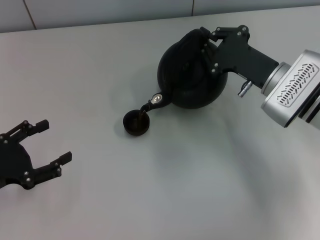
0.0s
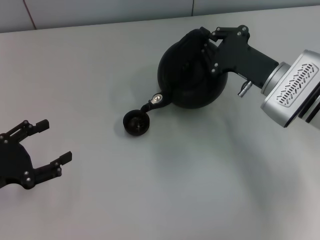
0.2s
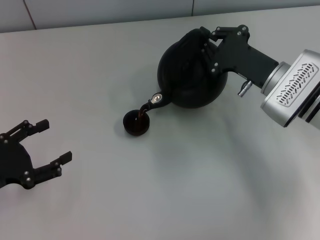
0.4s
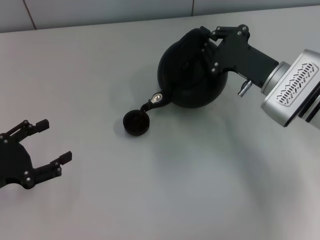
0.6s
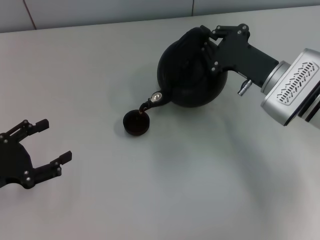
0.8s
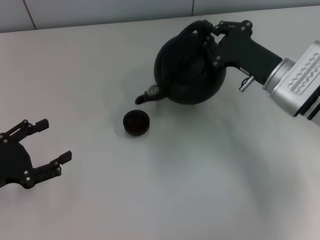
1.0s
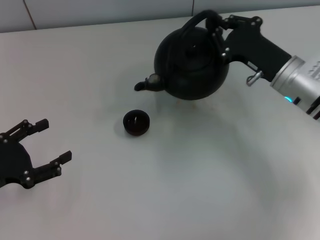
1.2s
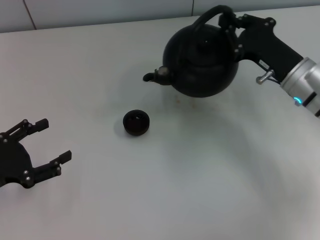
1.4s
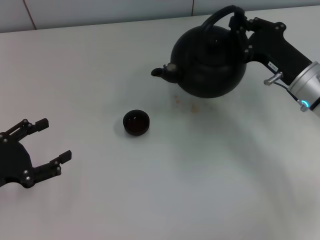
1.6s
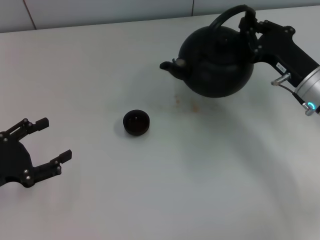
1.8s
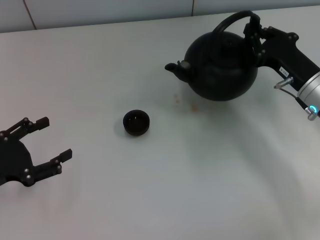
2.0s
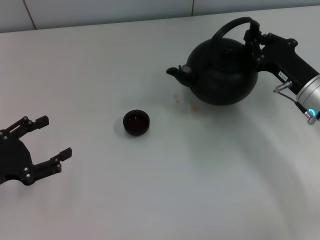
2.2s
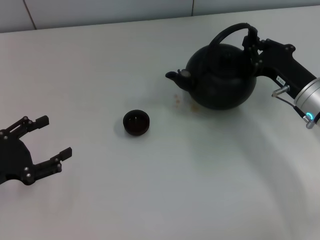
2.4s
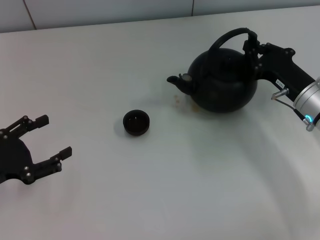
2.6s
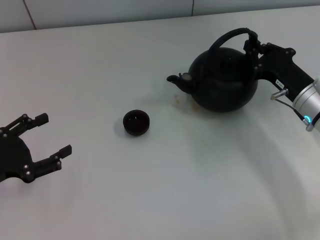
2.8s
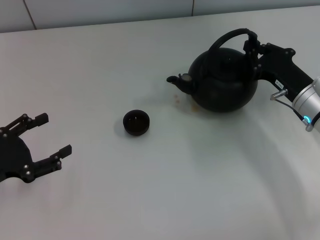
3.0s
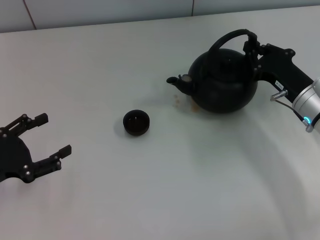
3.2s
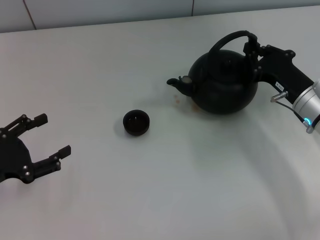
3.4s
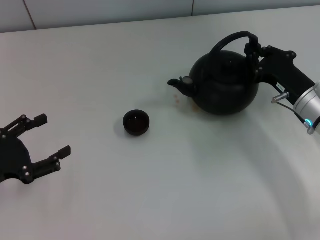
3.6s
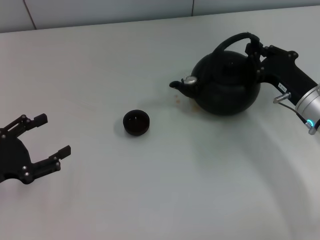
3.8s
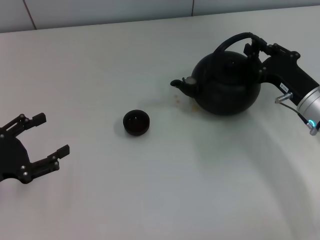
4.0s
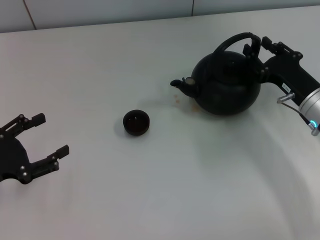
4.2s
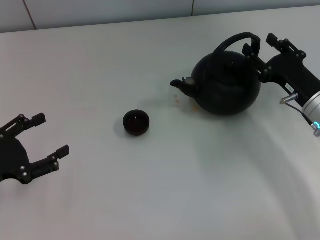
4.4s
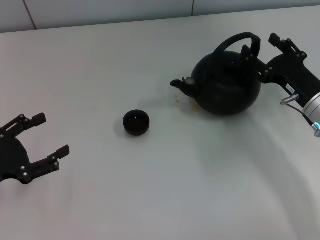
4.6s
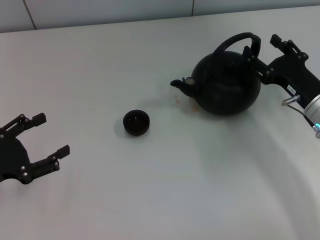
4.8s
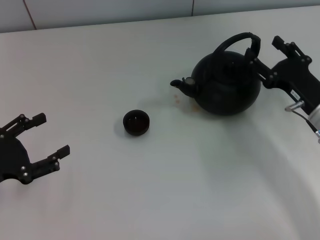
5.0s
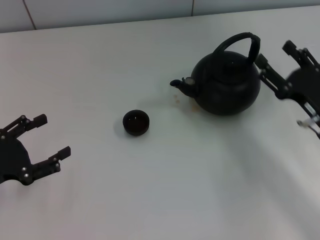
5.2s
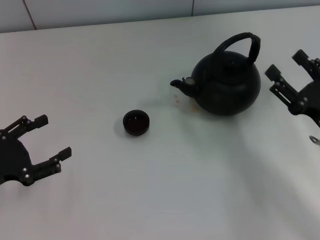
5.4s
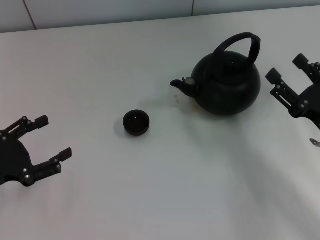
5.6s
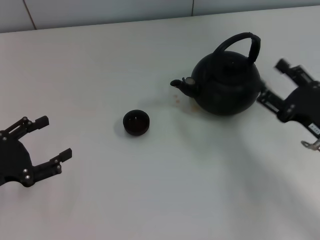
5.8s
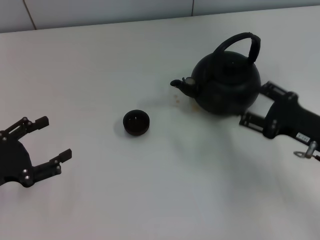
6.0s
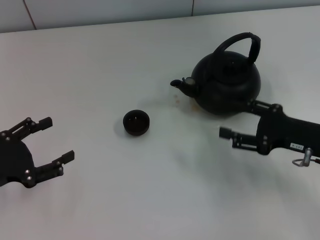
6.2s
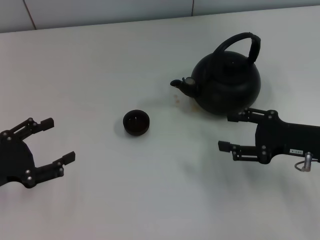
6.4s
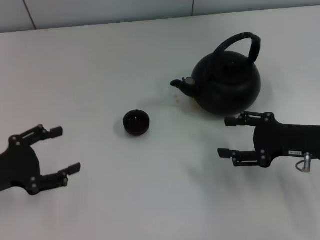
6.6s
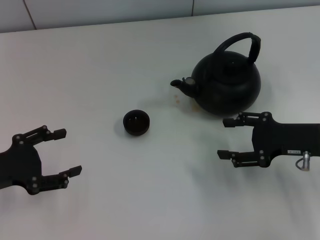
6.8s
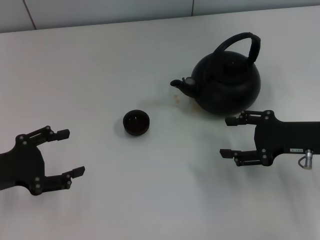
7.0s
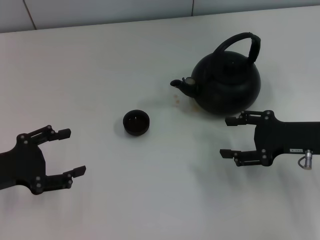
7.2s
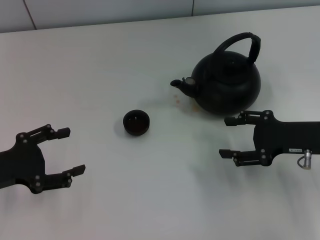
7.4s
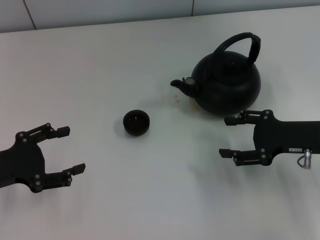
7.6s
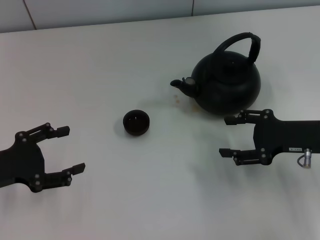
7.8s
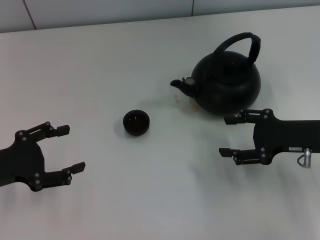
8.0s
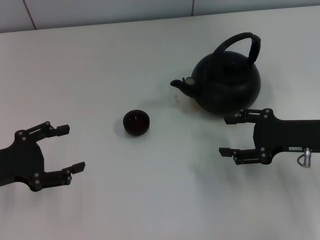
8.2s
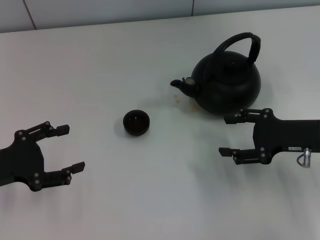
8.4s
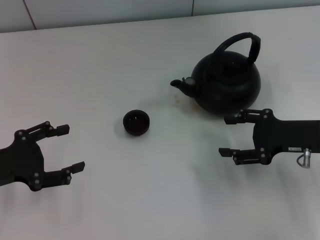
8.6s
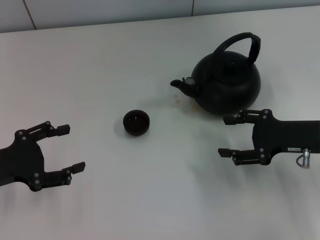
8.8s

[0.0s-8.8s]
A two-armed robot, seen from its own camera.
Task of the whole recording: Grasp the handle of the teapot with one hand and pour tea into the teacup.
Step, 1.6s to 5.4s: Put down the teapot with the right gripper.
1.4s to 3.0s: The grippers stay close to where they were, moving slightly.
3.0s to 4.4s: The right gripper opens.
4.4s to 5.8s: The right gripper shifts approximately 5 cm backward.
5.8s to 7.4s: The right gripper moves roughly 5 cm.
7.4s to 8.8s: Both grippers stay put.

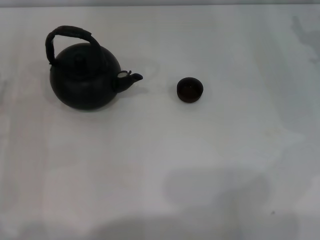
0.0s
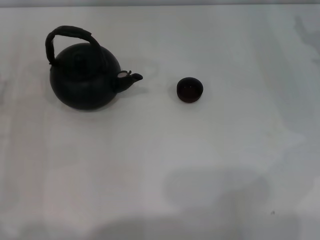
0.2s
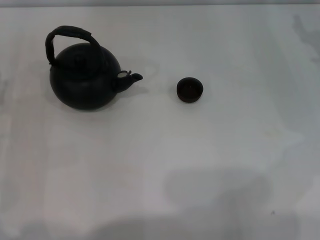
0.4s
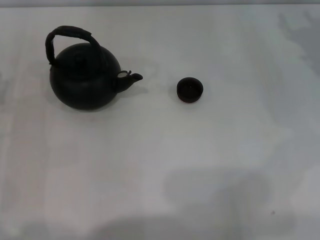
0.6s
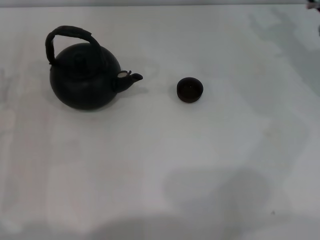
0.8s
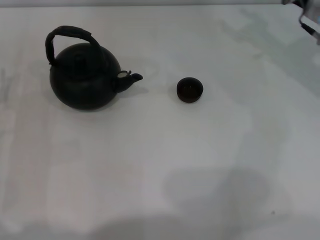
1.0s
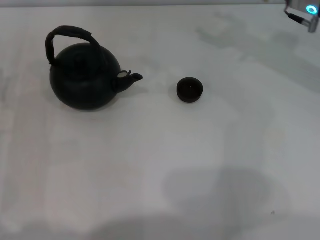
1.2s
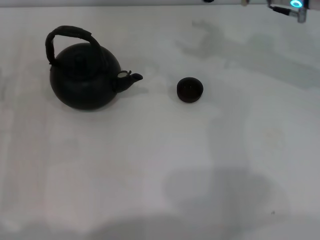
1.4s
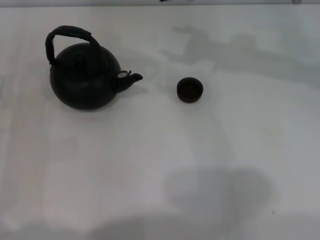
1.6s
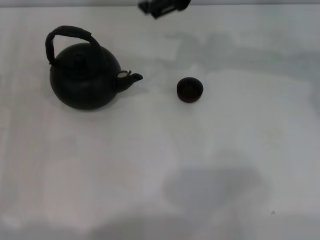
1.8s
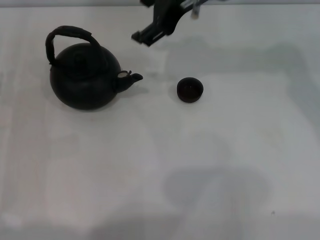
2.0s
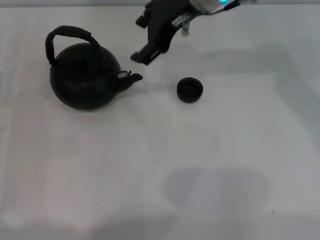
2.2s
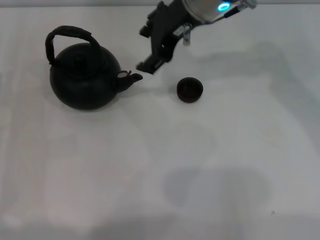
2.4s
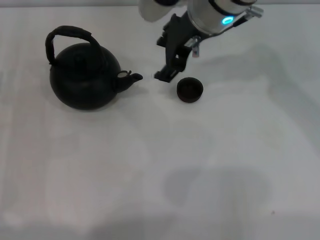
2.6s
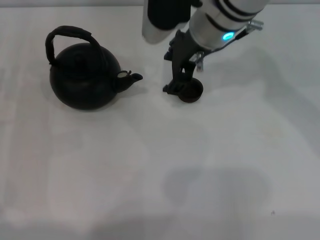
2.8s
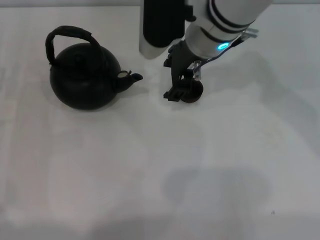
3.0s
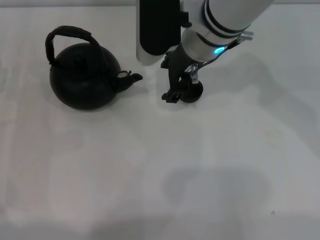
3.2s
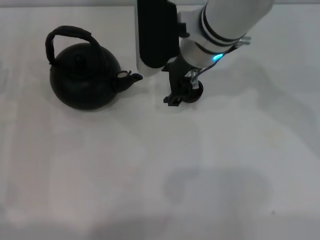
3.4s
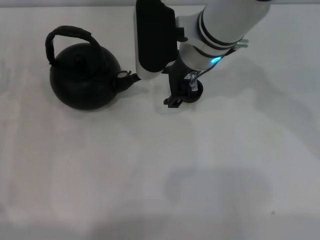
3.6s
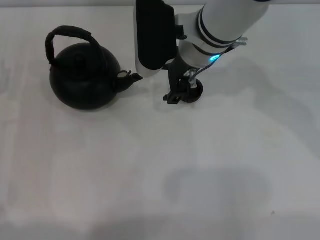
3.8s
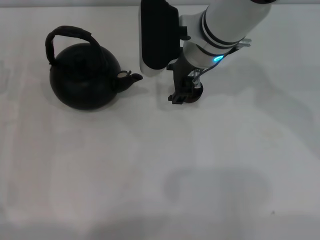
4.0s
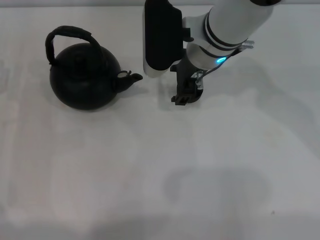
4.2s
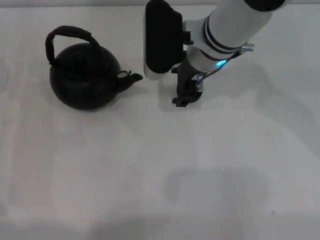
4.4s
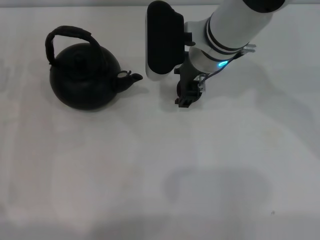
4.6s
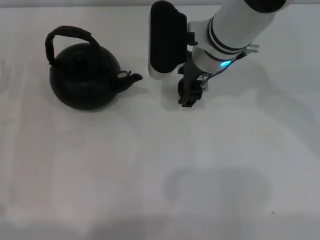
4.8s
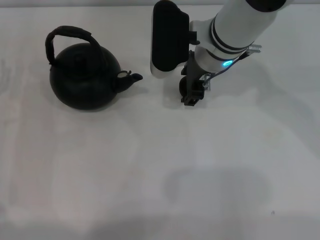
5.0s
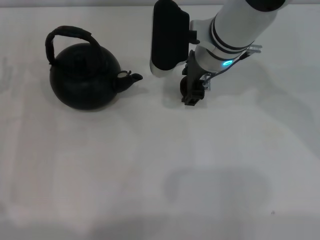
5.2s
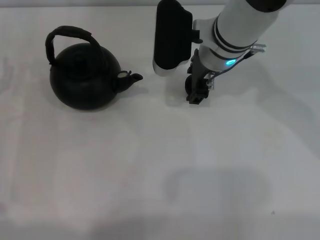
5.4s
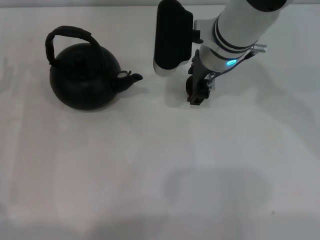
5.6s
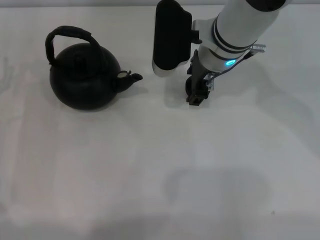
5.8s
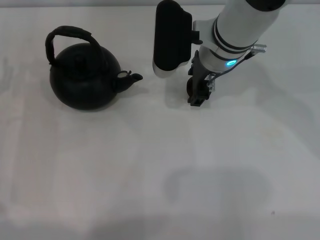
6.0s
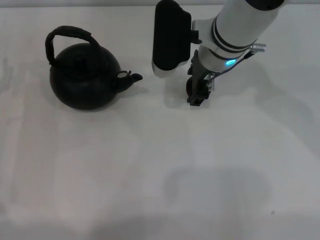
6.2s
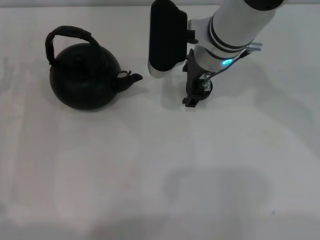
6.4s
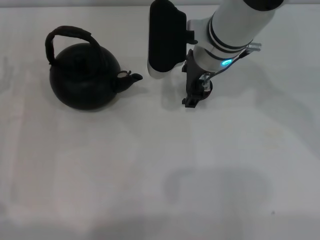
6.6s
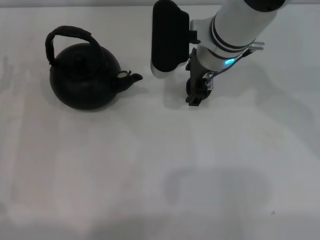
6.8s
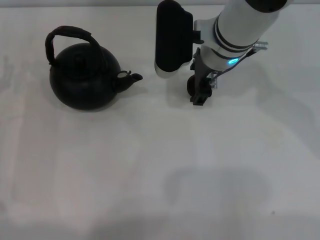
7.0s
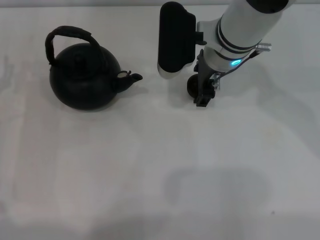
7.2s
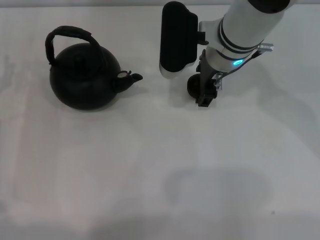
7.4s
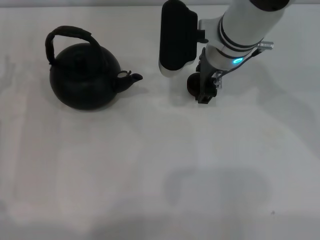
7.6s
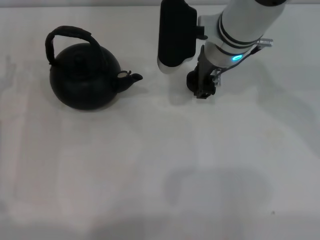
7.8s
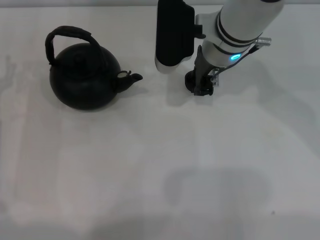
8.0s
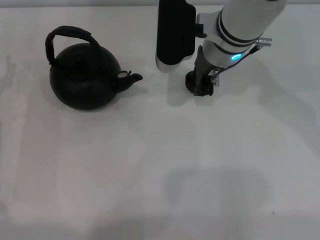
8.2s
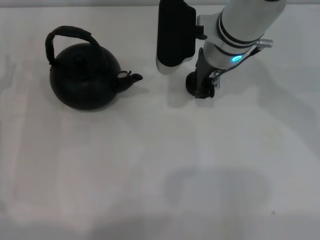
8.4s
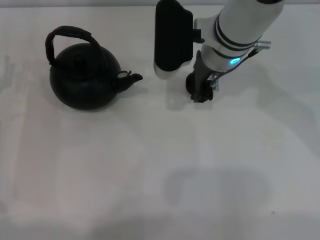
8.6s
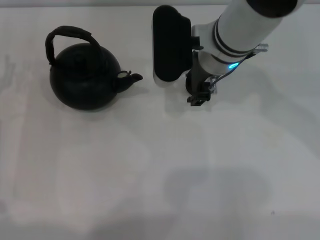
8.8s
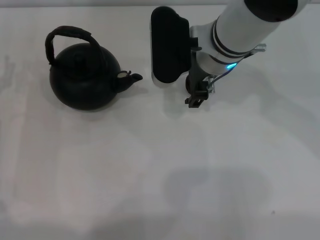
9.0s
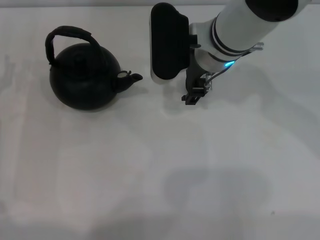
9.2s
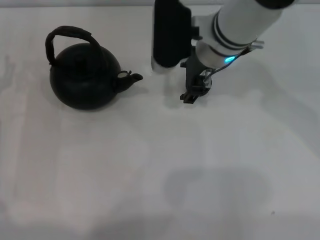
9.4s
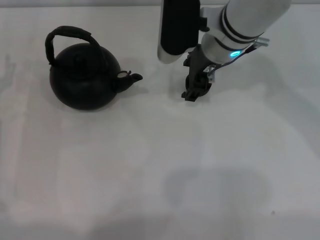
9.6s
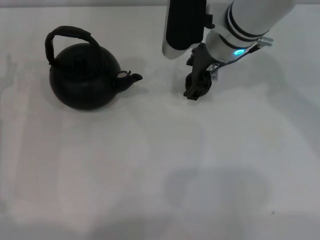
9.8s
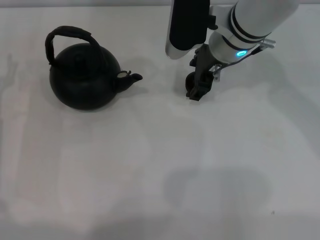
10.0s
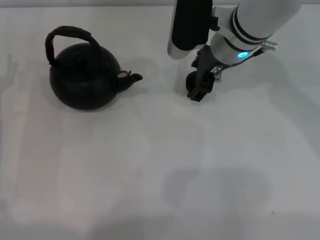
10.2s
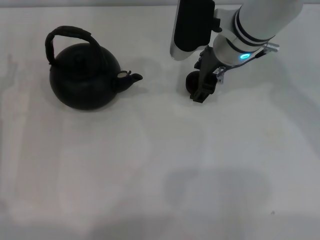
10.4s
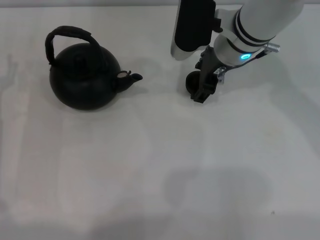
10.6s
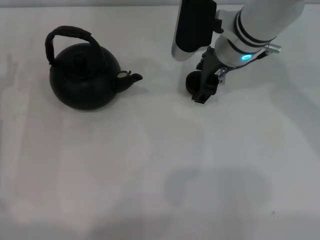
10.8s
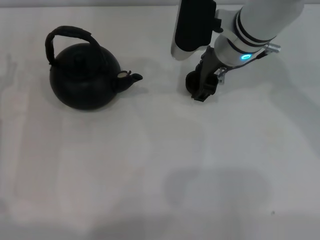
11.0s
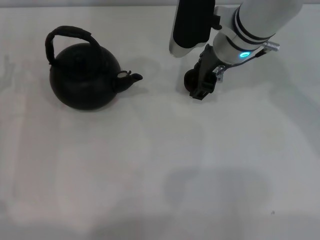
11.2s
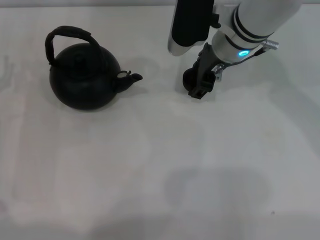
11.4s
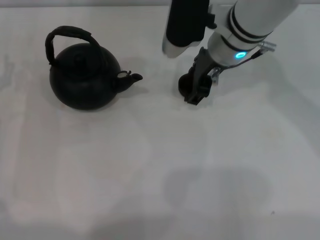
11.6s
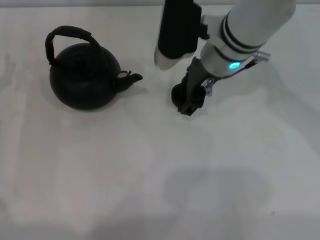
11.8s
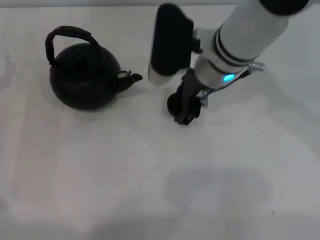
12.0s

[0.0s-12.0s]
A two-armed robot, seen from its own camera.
Task of the whole recording: Grasp the handle of the teapot with one hand and pour tea into the teacup.
Step, 0.0s to 11.4s: Pick up the teacup with the right gripper.
1.6s to 3.0s: The right gripper travels to the left and downward by roughly 10 cm.
3.0s to 6.0s: The grippers make only small movements.
6.0s to 7.6s: Both grippers stay put.
7.6s to 9.0s: The right gripper closes its fingers.
9.0s to 10.4s: The grippers make only small movements.
10.4s to 12.0s: The right gripper changes place by roughly 5 cm.

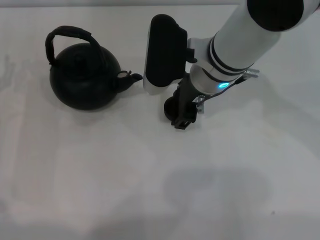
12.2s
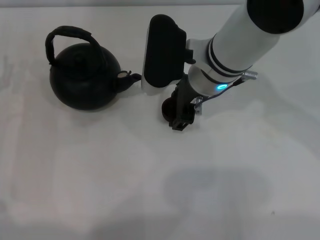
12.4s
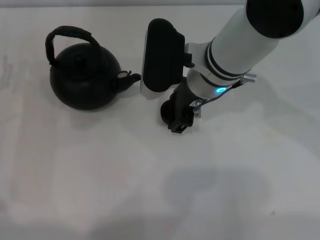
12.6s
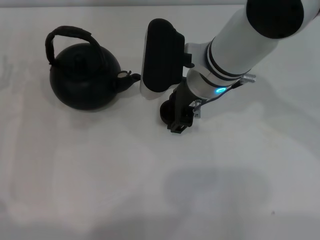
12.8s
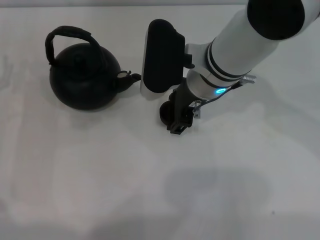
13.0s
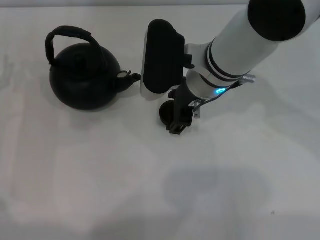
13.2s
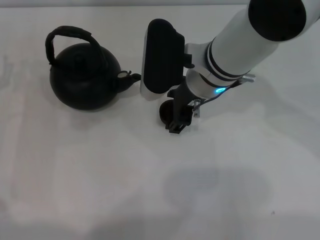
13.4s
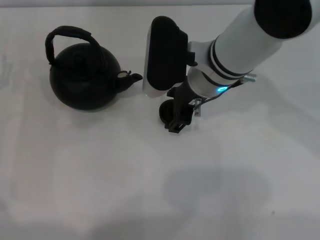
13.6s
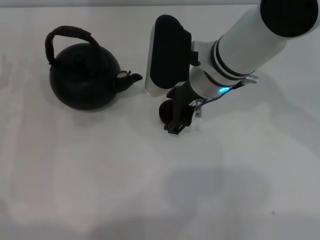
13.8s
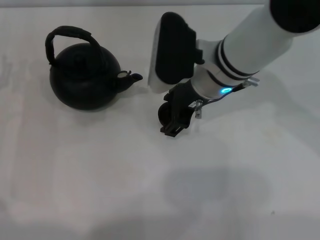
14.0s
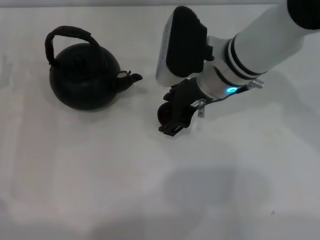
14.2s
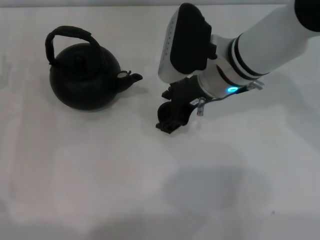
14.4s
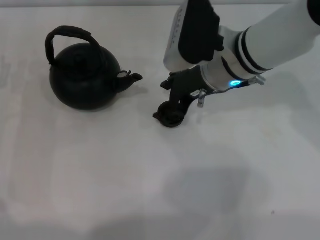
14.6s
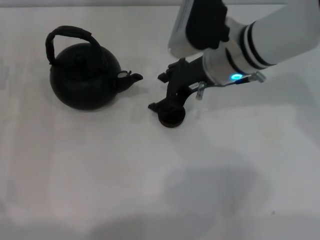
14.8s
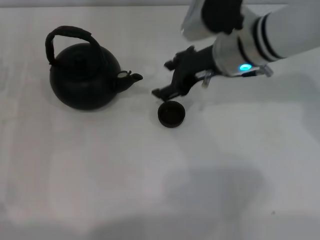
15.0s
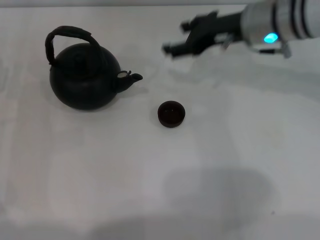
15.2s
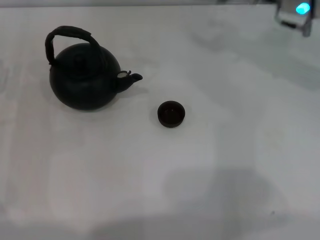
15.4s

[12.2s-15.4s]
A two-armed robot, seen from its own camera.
Task of the whole recording: Grasp the handle of the teapot with one hand and pour tea into the teacup.
Step, 12.2s to 15.0s: Place the teacup in the center of view with the right gripper.
12.2s to 13.8s: The grippers stay close to where they were, moving slightly.
13.8s to 15.4s: The right gripper travels to the right and forward by roughly 15 cm.
